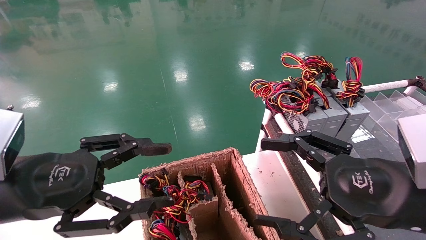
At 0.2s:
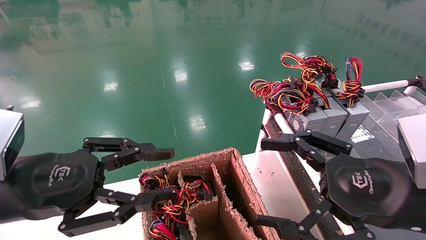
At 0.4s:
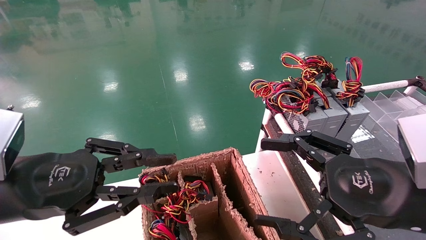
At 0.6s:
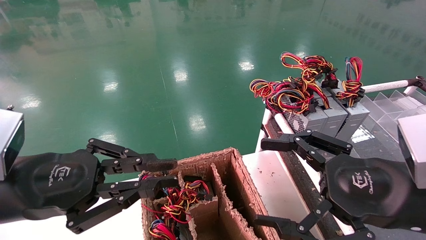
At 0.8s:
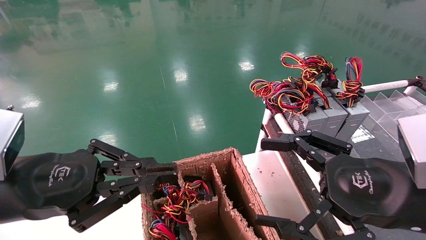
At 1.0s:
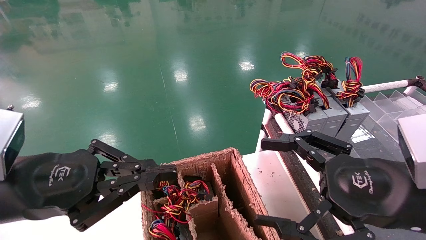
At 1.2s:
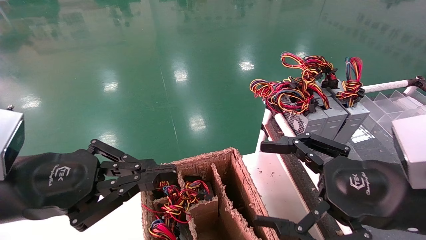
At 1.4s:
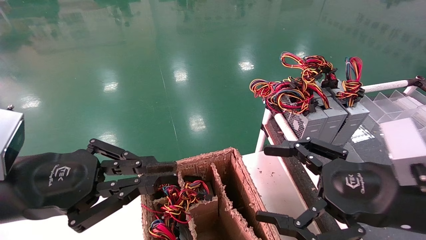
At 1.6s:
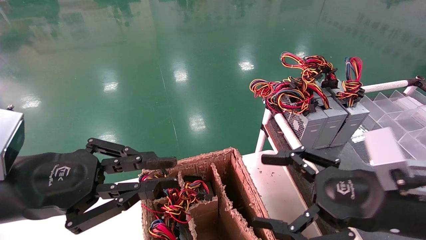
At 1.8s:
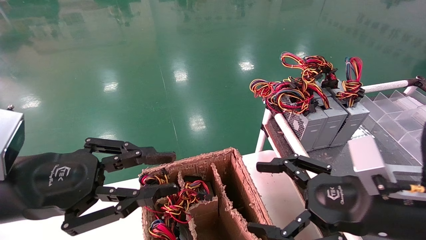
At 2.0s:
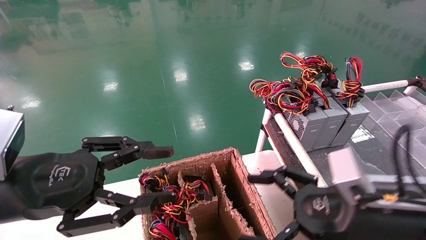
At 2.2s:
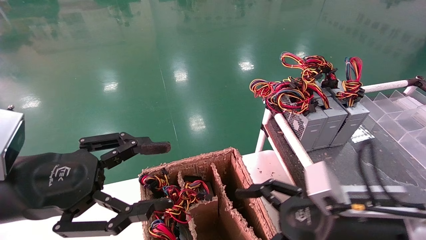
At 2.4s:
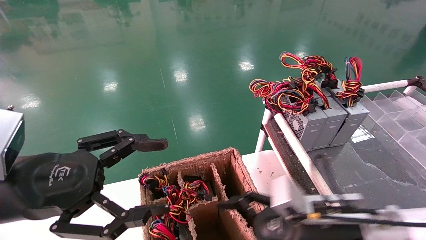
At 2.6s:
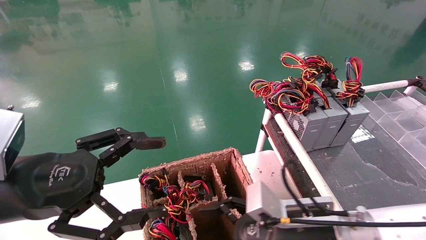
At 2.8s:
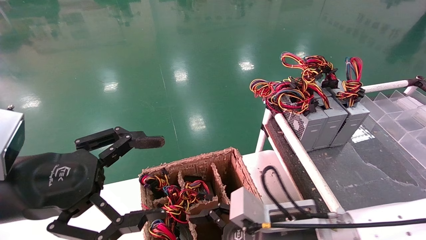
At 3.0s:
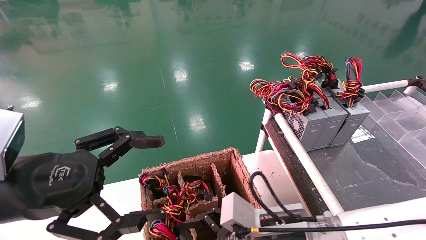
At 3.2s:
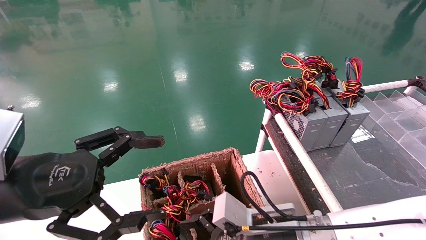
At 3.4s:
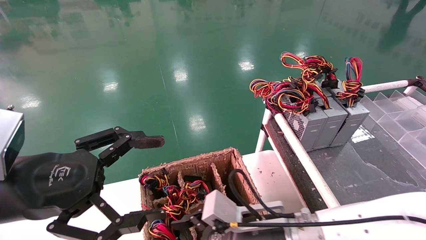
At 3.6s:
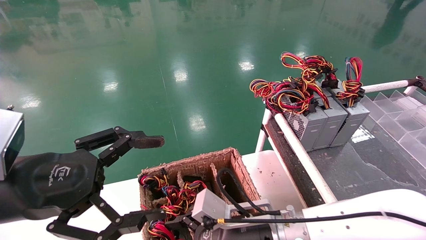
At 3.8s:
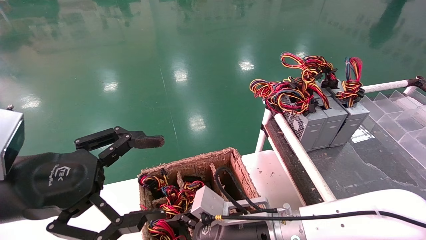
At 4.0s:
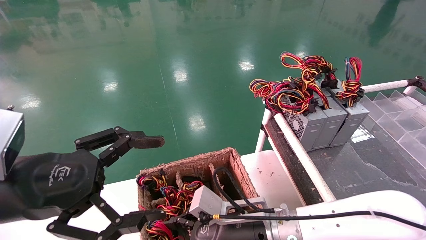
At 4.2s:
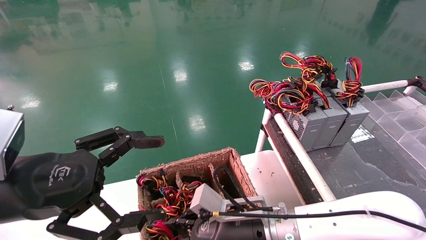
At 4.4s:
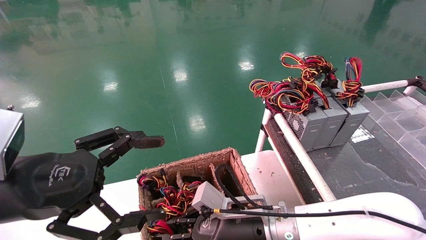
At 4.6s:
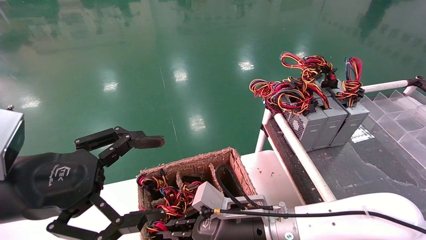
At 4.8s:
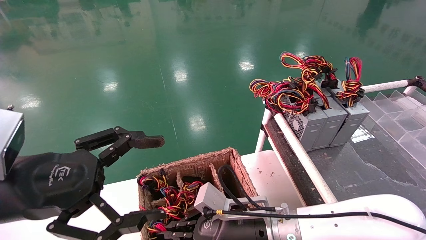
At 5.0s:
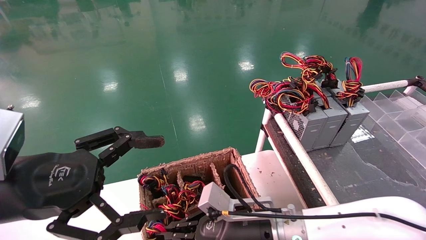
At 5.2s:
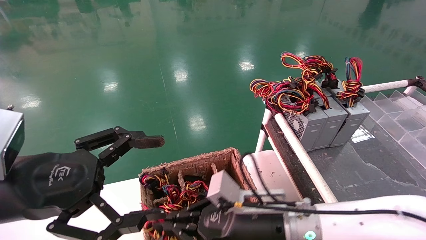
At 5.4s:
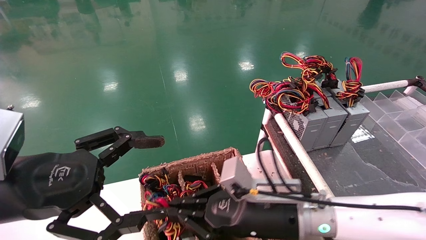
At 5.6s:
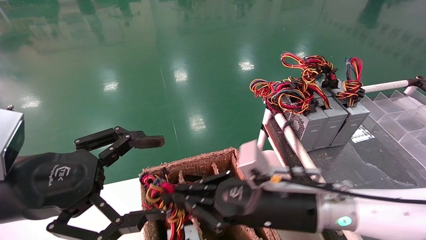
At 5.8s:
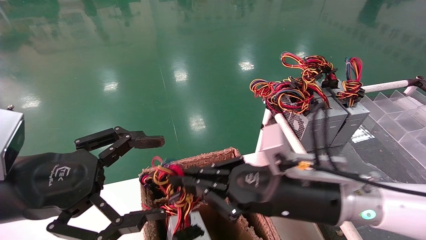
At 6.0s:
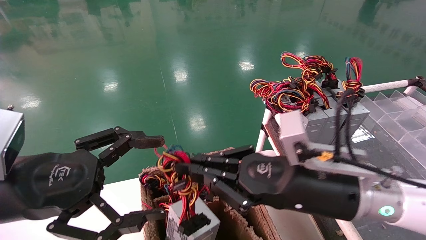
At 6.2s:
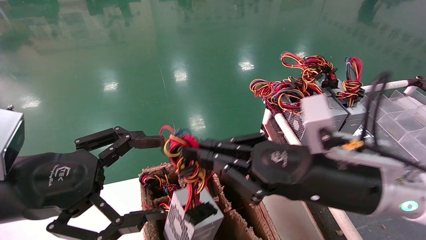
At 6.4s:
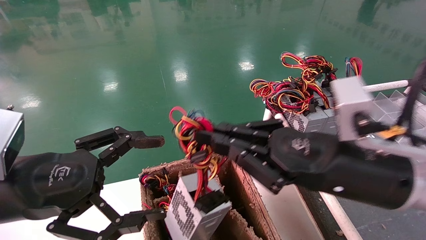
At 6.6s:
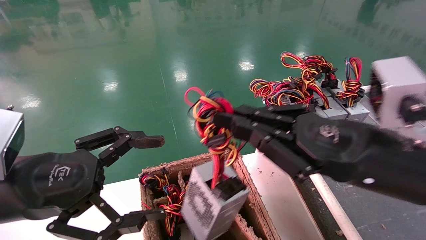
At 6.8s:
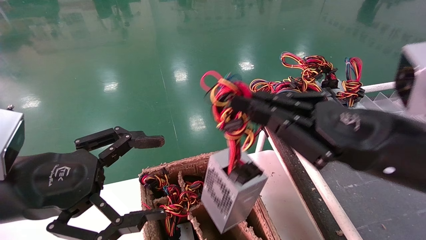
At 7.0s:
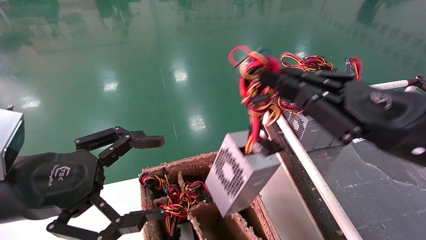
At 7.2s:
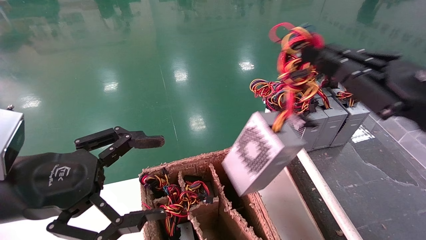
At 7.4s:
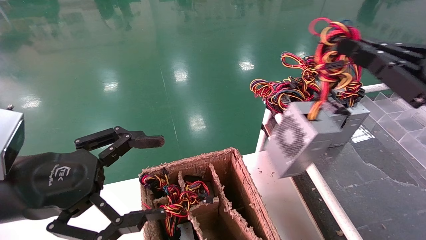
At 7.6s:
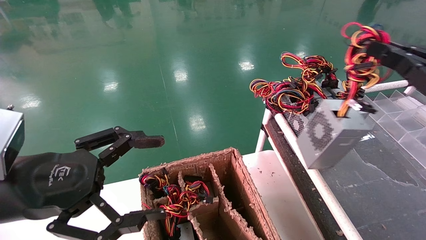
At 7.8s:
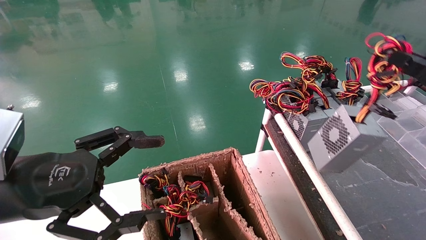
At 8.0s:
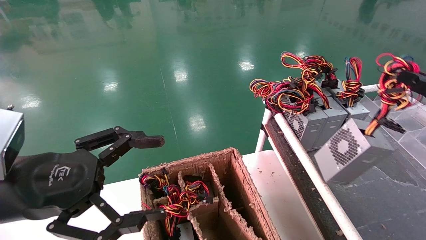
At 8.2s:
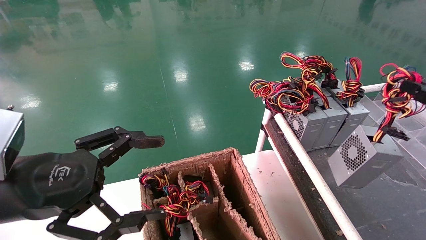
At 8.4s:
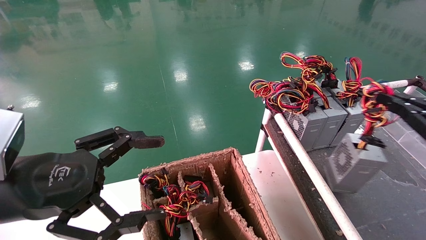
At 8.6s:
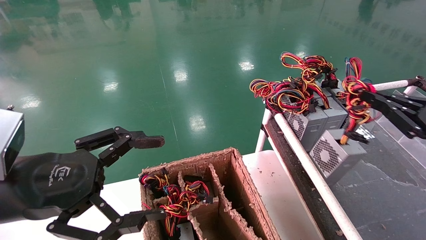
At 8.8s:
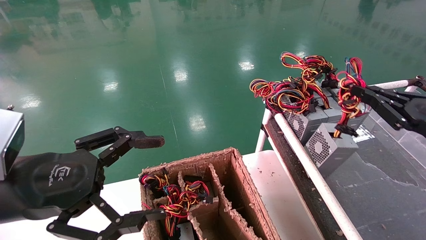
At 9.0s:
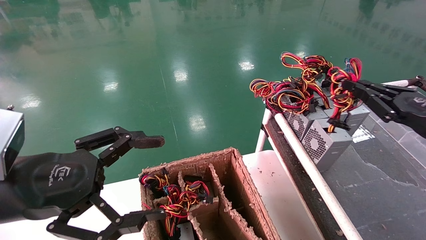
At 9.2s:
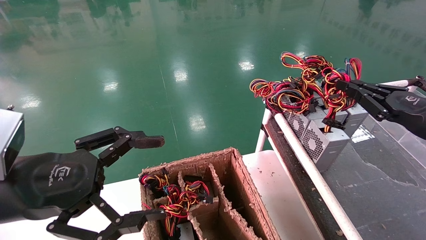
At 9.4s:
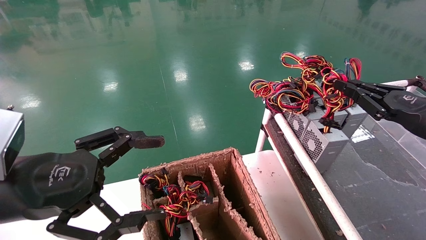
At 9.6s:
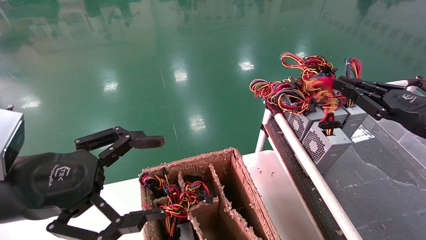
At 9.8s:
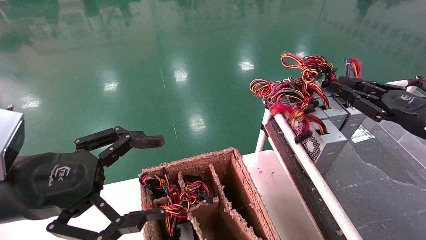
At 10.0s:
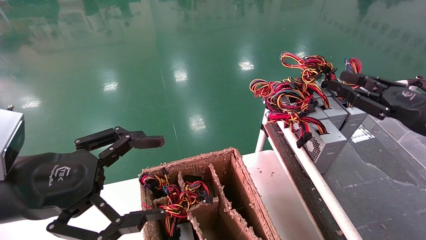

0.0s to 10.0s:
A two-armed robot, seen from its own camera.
Step, 1.0s to 4.8s: Grab and lift the power supply from the large box.
Step, 5.0s to 9.6s: Place the power supply on the operating table.
0.0s to 1.4s: The left gripper closes up.
1.4s to 2.8s: The right gripper goes some 15 cm to the left, downward and forward. The left gripper opens.
2.8s to 4.2s: The right gripper shifts approximately 5 cm to the left, and closes up.
4.2s to 5.8s: The right gripper moves upward and to the right, some 15 cm, and closes.
5.8s to 7.2s: The right gripper shifts about 20 cm to the right and upward.
7.2s to 8.6s: The right gripper goes about 15 cm to the right, downward and forward.
8.6s to 10.0s: The right gripper moves about 5 cm.

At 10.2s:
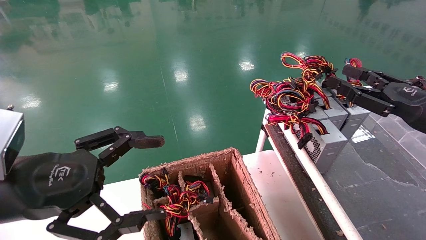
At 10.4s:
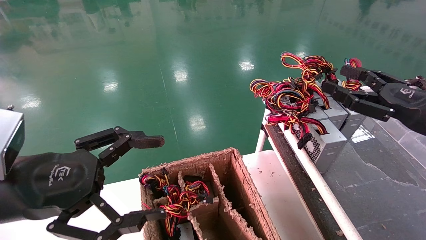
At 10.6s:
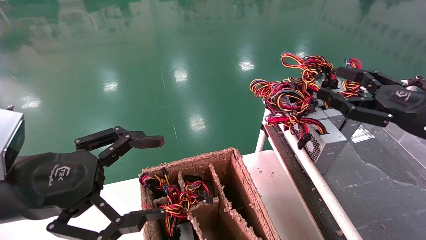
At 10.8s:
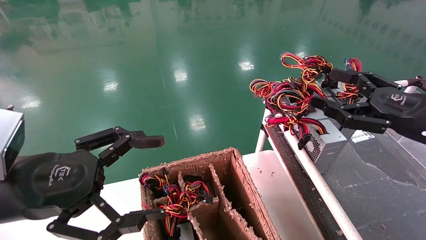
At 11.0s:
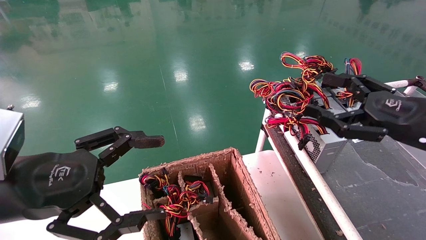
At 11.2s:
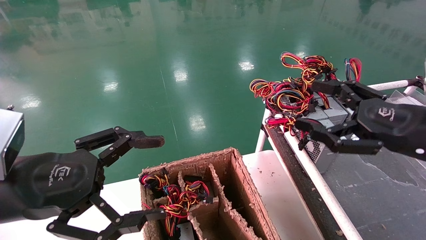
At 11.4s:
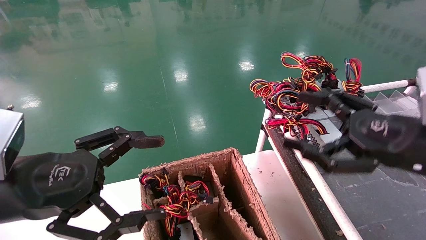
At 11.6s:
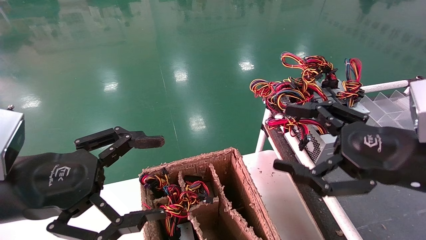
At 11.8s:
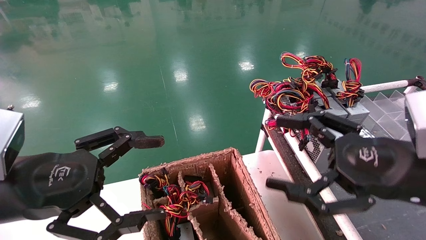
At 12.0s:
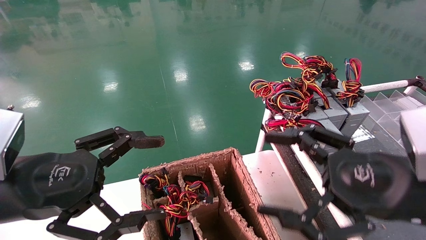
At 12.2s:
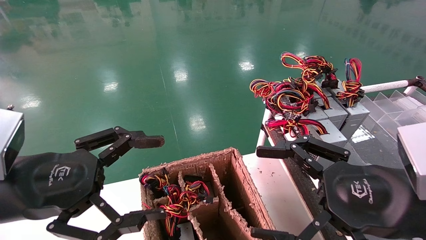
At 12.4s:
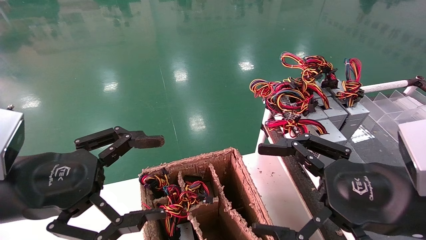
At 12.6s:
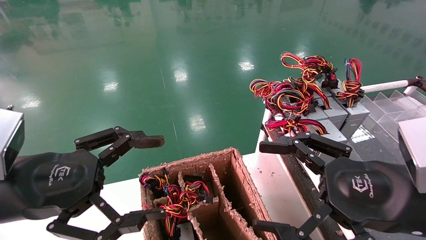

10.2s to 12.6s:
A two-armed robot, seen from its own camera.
10.2s to 11.4s: The right gripper moves to the left and backward, about 10 cm, and opens up.
11.4s to 12.6s: The right gripper travels backward and to the left by roughly 10 cm.

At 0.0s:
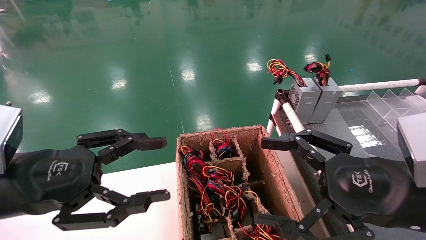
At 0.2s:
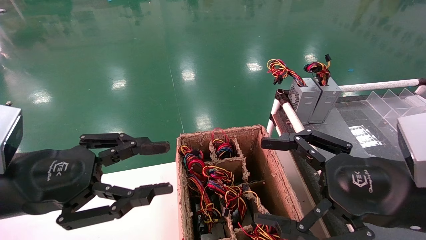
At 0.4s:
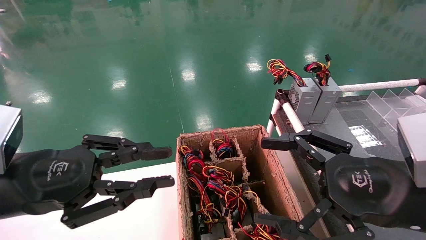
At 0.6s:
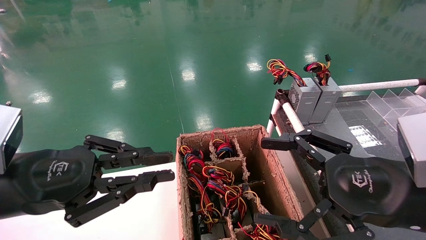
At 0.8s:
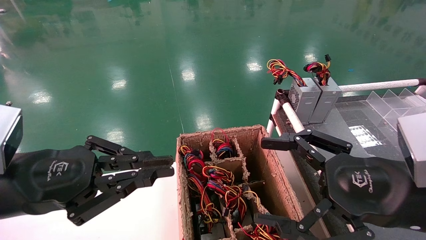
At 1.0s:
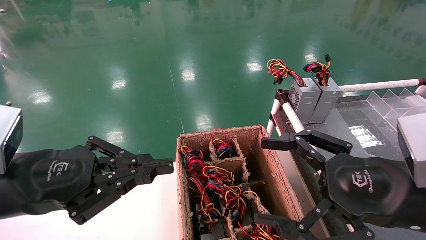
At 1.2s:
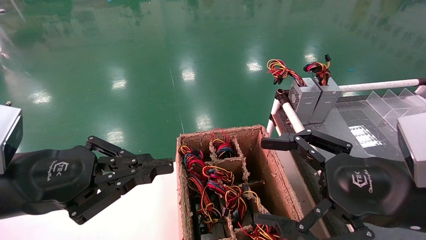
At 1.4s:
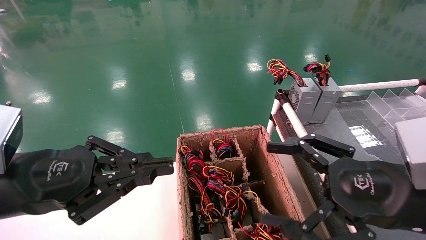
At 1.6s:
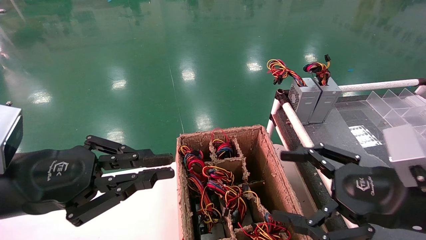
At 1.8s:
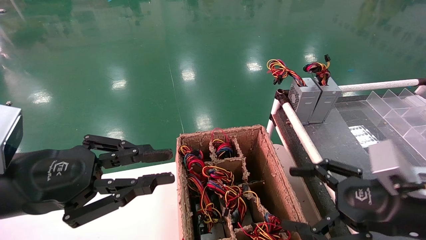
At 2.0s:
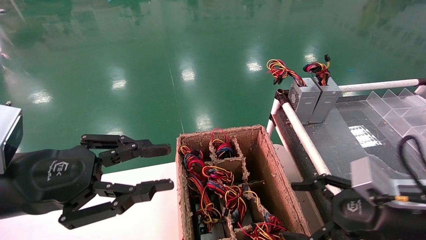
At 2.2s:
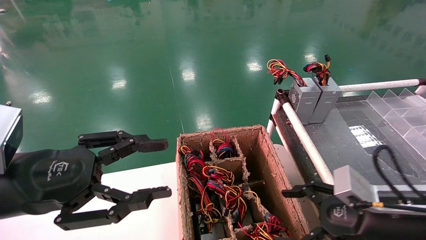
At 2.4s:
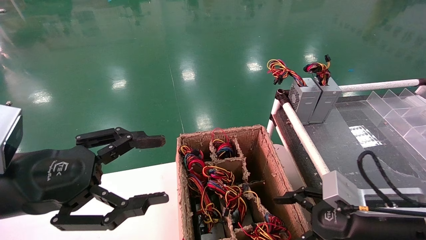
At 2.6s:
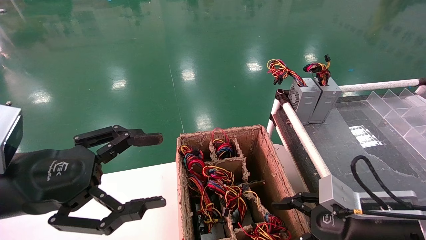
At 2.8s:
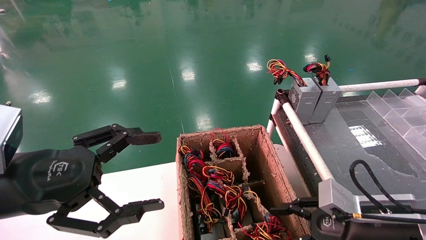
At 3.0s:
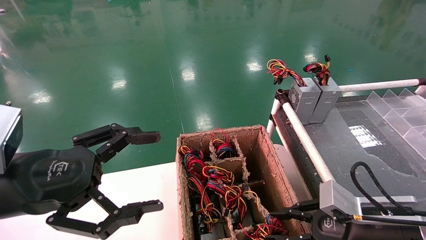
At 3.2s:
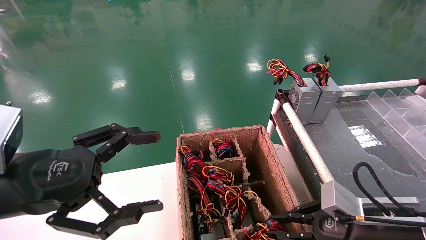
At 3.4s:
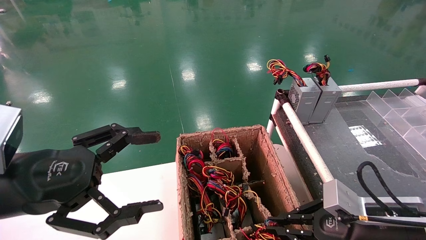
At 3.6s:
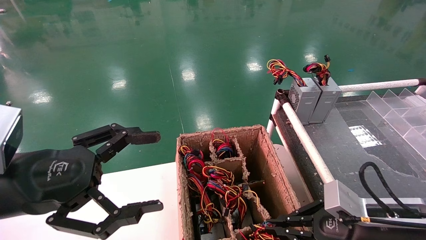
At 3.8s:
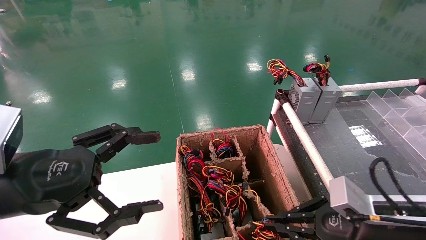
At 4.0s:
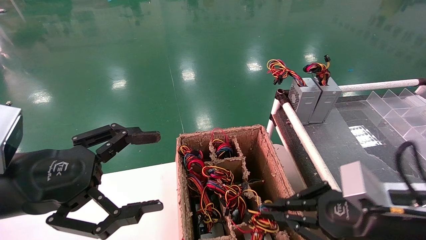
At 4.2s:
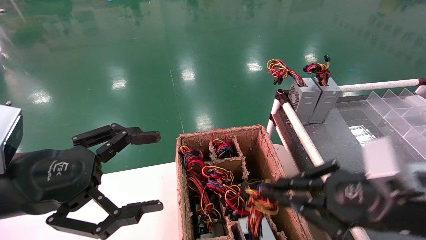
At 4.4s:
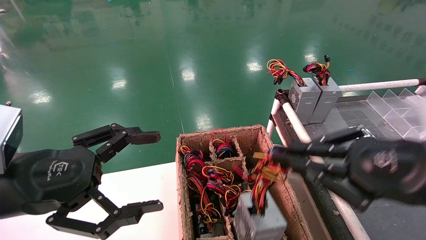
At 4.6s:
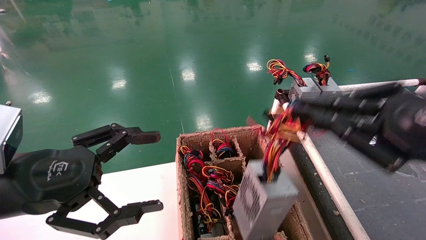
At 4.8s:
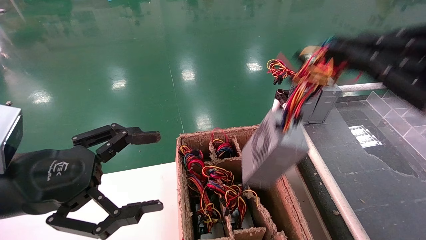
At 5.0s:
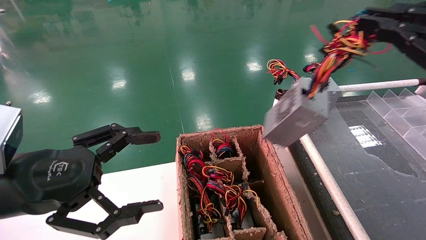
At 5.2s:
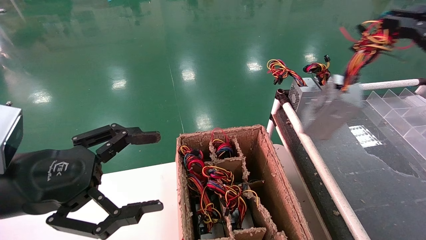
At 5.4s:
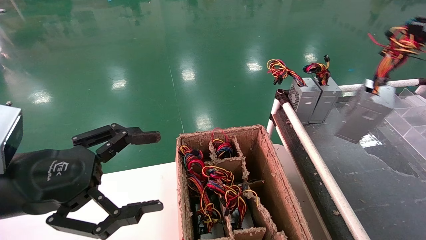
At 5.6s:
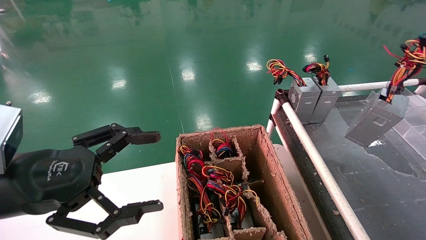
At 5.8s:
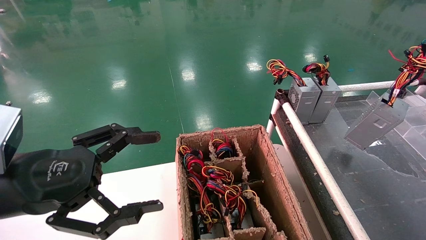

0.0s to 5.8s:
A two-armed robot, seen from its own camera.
Step, 0.4s to 3.4s: Grab and lift the power supply from the large box.
0.0s to 1.4s: The left gripper closes up.
1.4s to 2.8s: The left gripper opens; the right gripper travels downward by some 10 cm, and closes.
2.8s to 4.4s: The right gripper heads upward and backward, covering approximately 15 cm, and closes up.
4.4s to 5.8s: The right gripper heads to the right and upward, covering some 25 cm.
